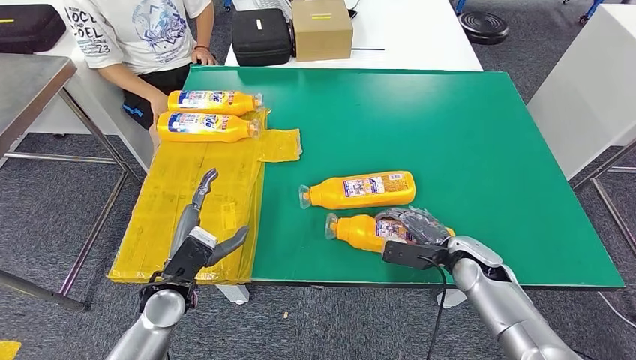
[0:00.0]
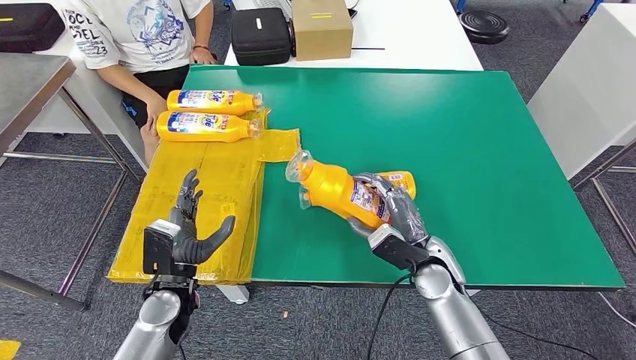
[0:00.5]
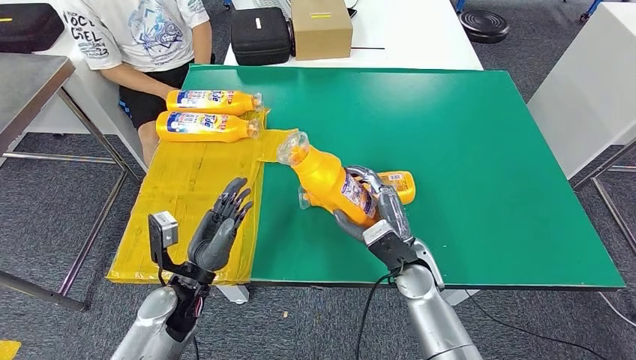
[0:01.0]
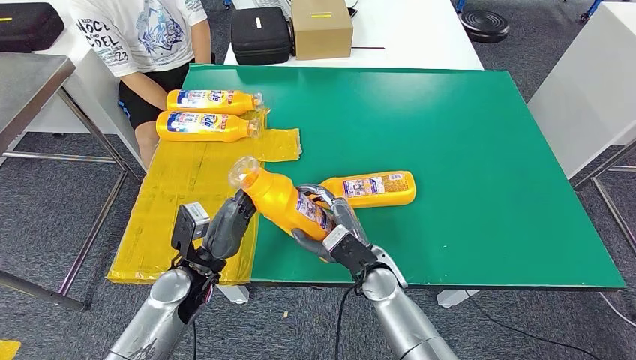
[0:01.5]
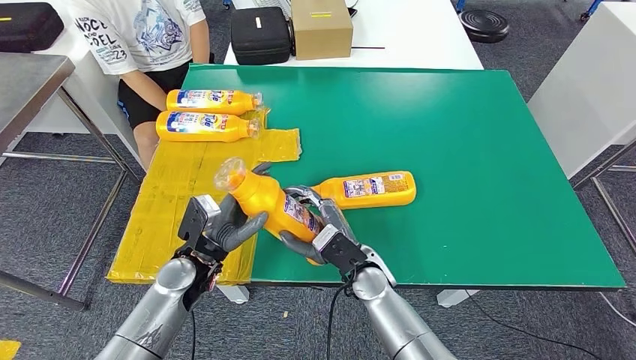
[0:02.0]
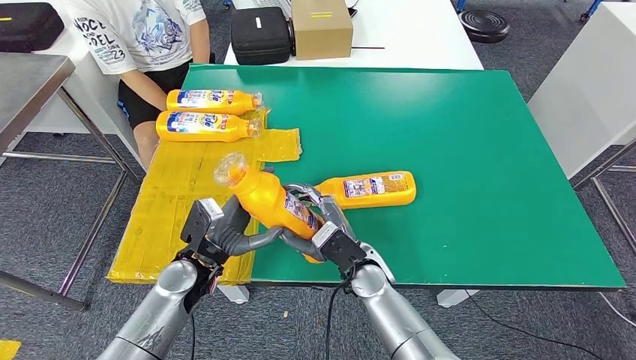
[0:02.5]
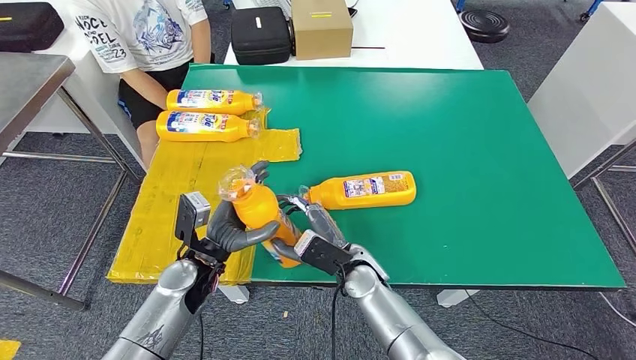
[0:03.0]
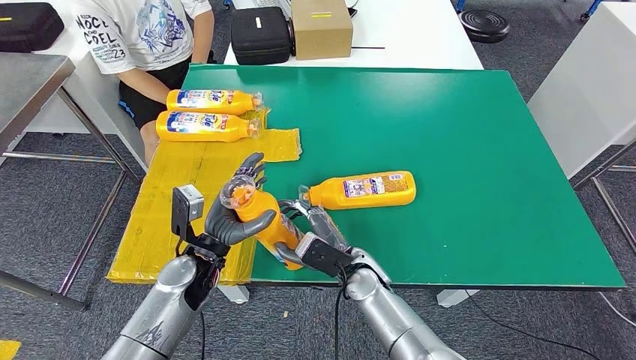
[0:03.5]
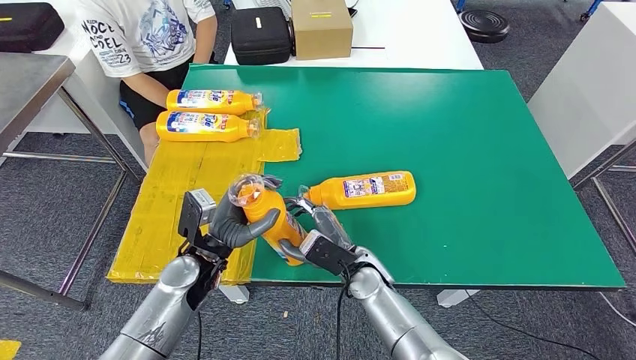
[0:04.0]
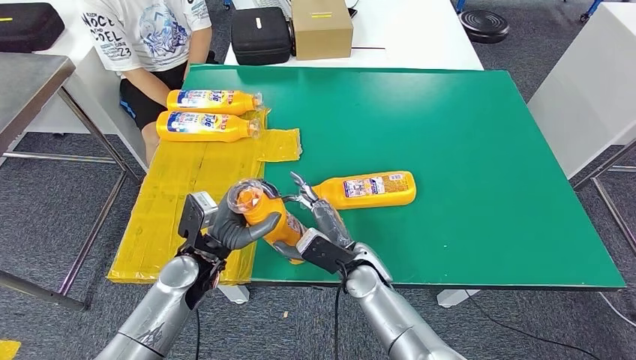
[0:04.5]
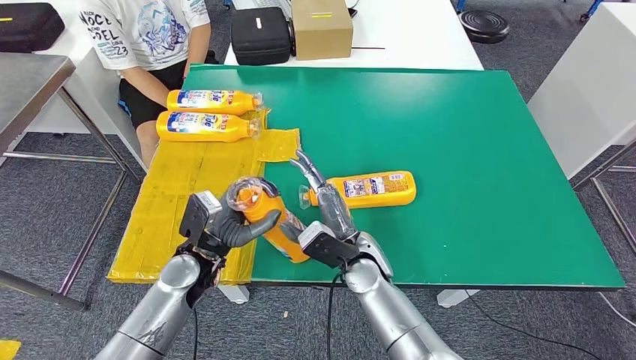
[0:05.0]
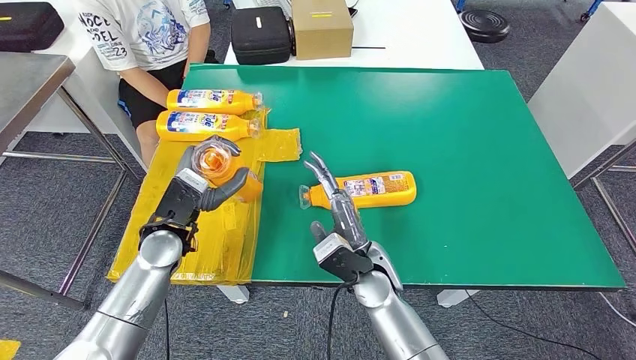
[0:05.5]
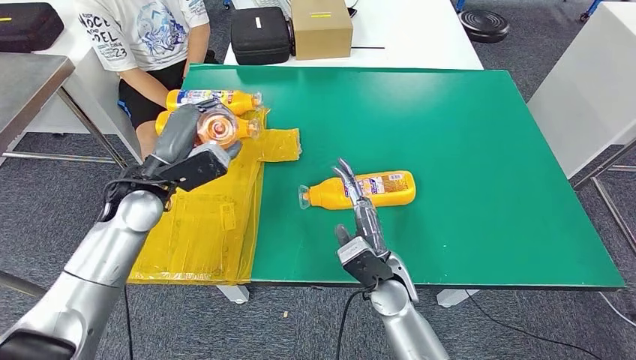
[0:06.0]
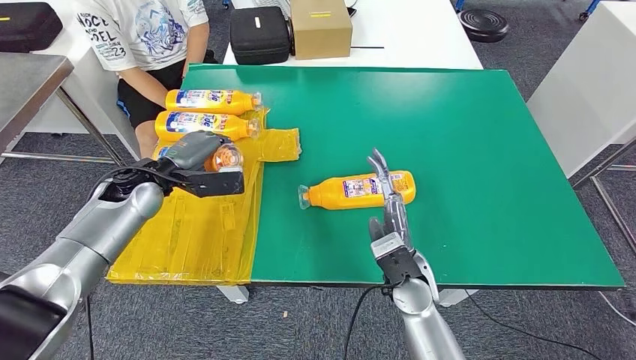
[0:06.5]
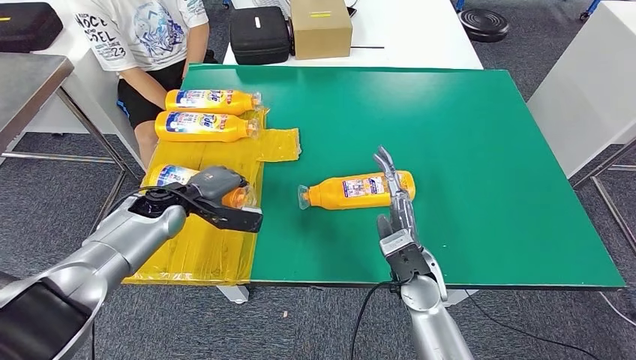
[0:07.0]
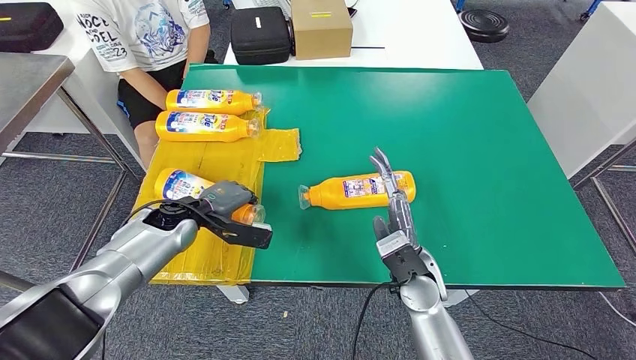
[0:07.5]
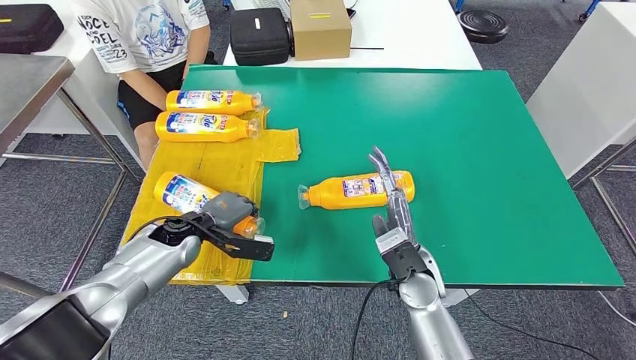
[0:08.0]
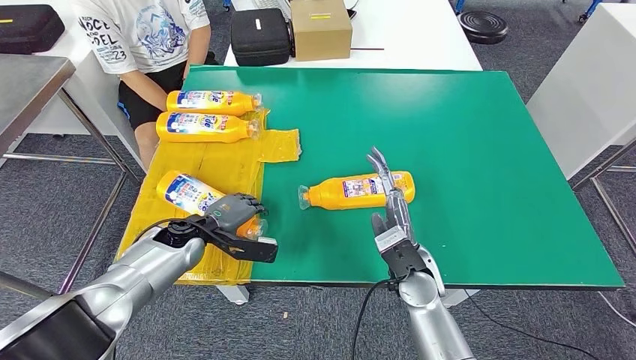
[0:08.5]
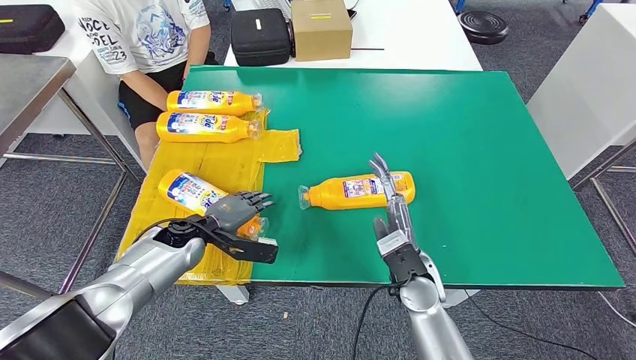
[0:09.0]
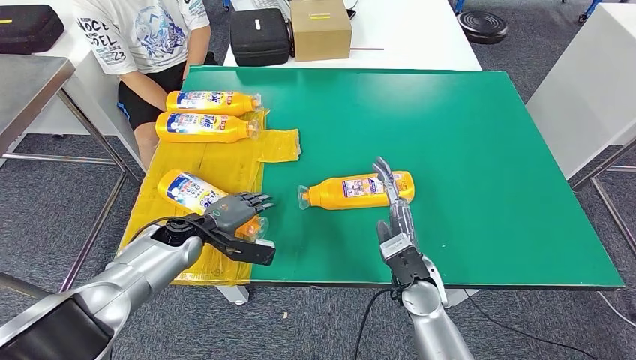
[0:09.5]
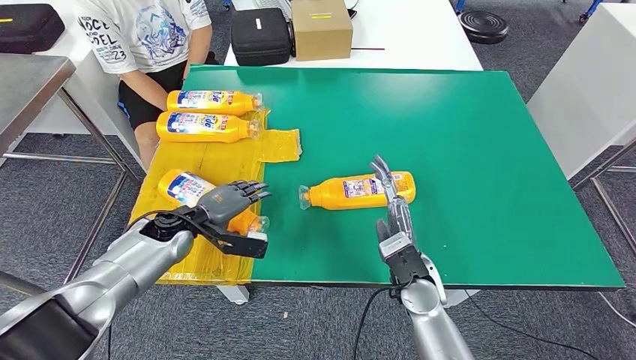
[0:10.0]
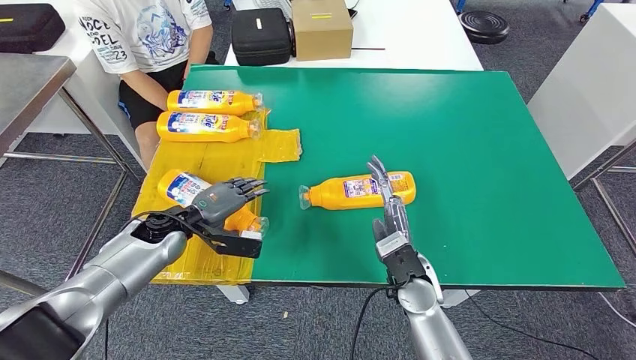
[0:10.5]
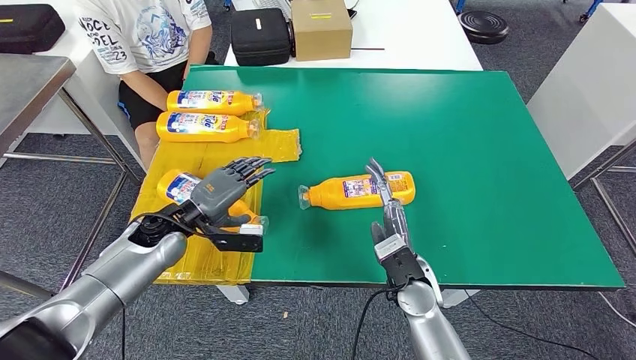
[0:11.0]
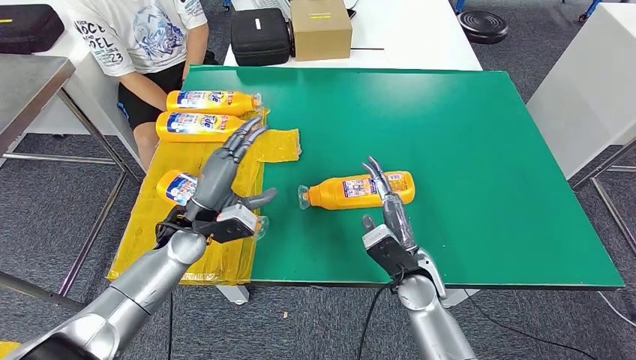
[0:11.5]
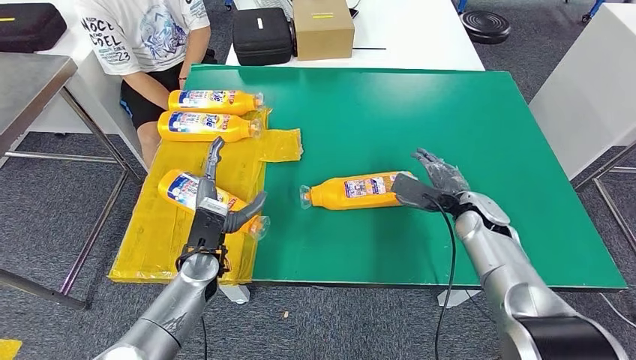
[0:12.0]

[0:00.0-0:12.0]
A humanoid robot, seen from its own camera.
Step, 0:02.0 to 0:10.5: Flip the fast-moving consumer goods bottle to the front side.
0:00.0 to 0:02.0: The right hand goes roughly 20 cm to the left. The left hand changes place by about 5 cm.
0:02.0 to 0:04.0: There are only small adjustments of the hands.
0:04.0 to 0:06.0: The right hand shifts by about 5 cm. The left hand shifts roughly 15 cm upward, forward and to the left.
0:06.0 to 0:08.0: The left hand travels downward by approximately 15 cm.
0:08.0 to 0:10.0: The hands move only a little.

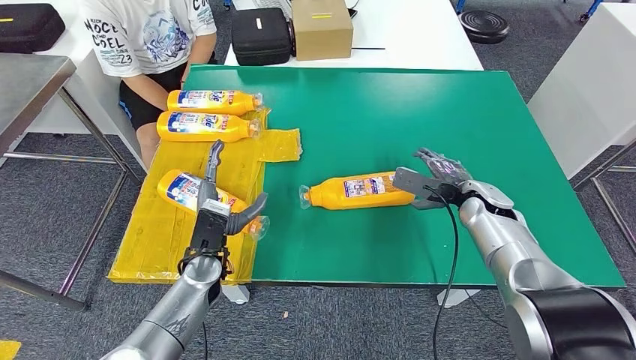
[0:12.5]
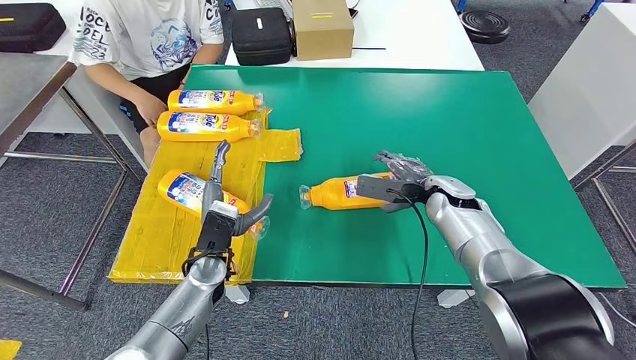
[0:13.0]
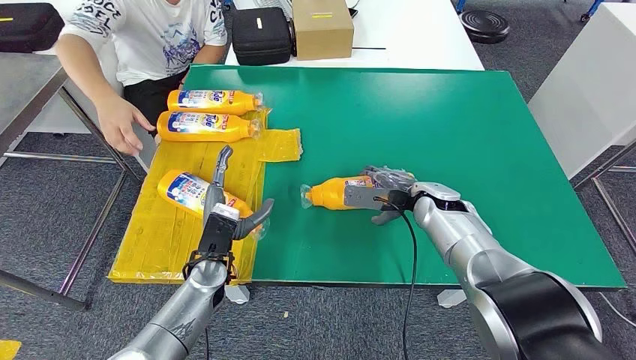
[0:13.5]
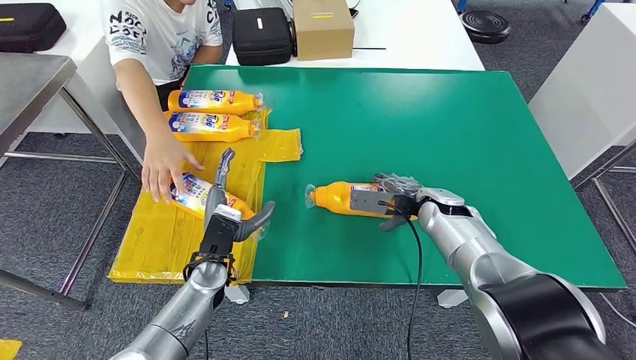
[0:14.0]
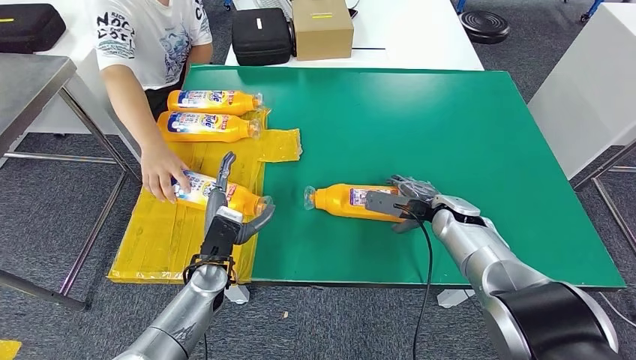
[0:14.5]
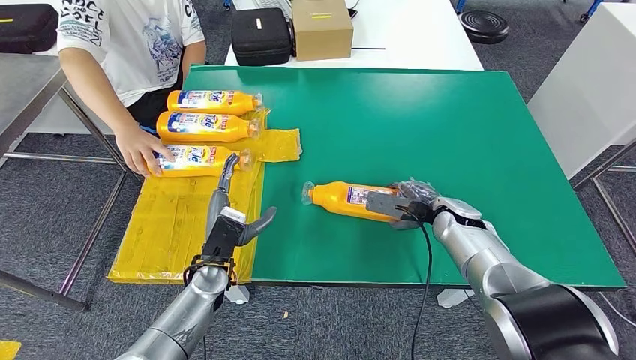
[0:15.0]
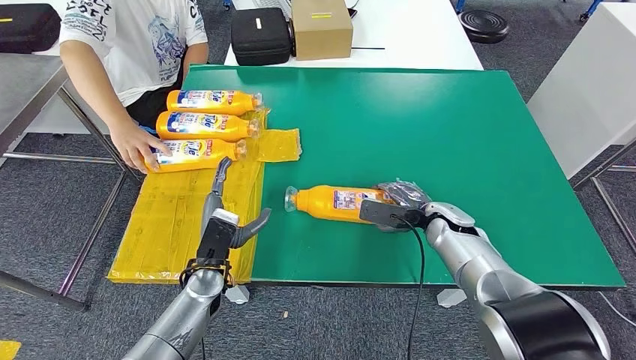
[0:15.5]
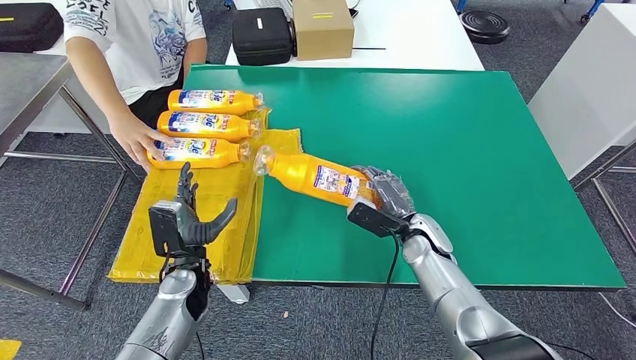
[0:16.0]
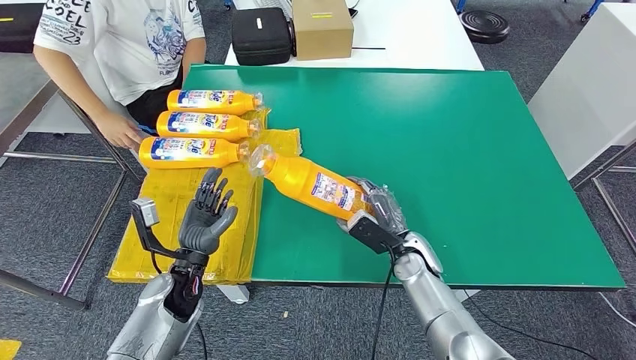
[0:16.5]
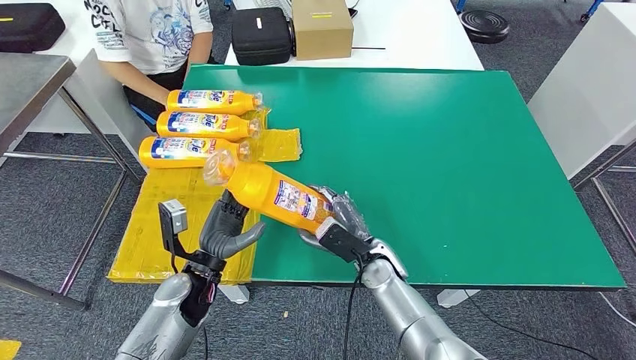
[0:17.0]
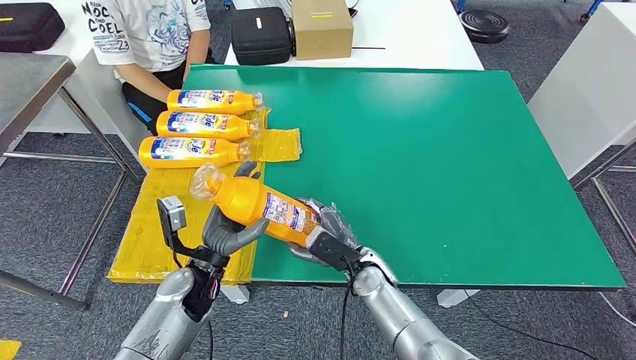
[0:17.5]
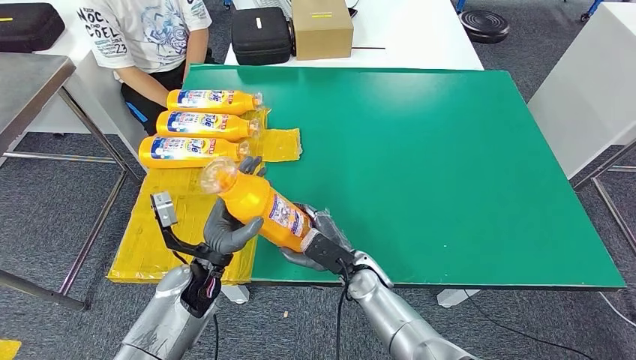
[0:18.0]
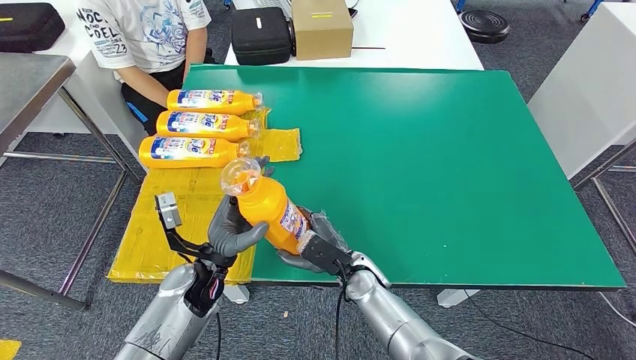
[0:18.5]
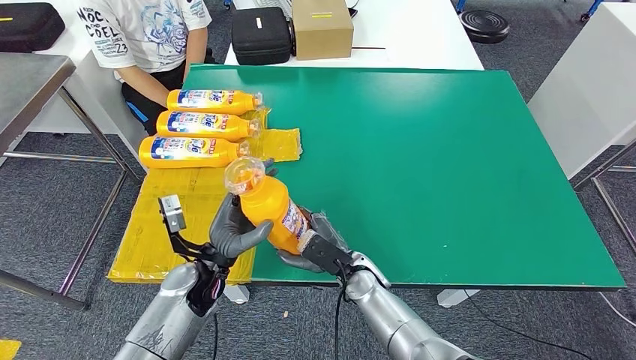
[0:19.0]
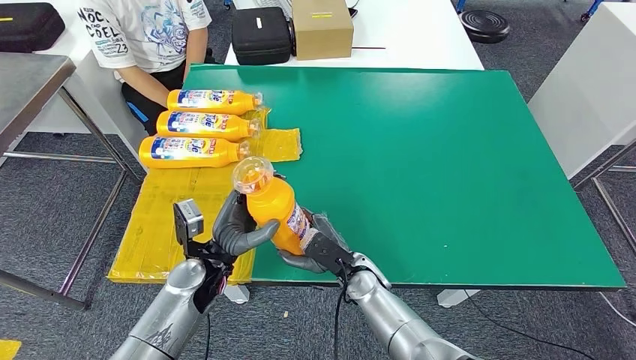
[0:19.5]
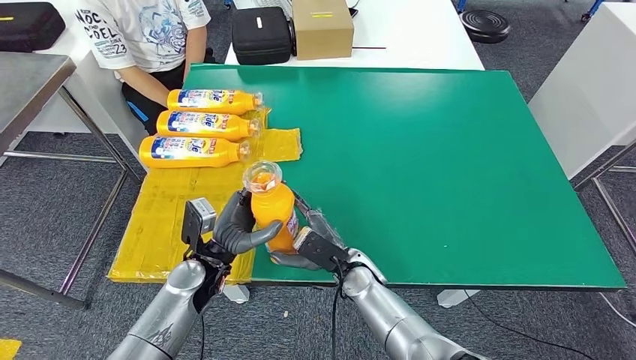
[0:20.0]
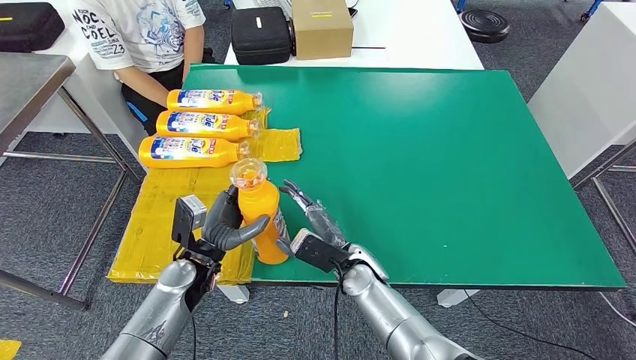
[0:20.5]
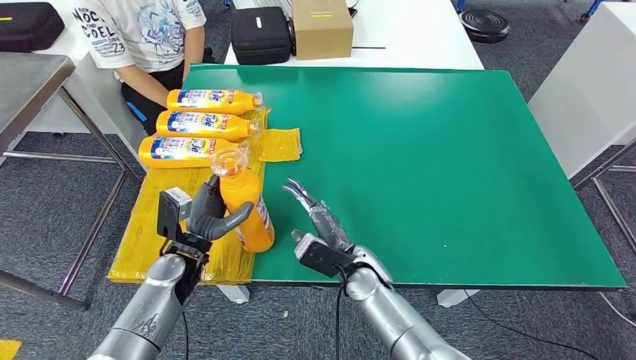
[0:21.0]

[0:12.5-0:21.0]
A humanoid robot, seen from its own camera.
Step, 0:14.5 to 0:17.0: Pick up the fast-moving consumer goods bottle from the table.
0:12.5 to 0:14.5: The right hand travels to the left by roughly 5 cm.
0:19.0 to 0:21.0: The left hand is displaced to the left by roughly 5 cm.
